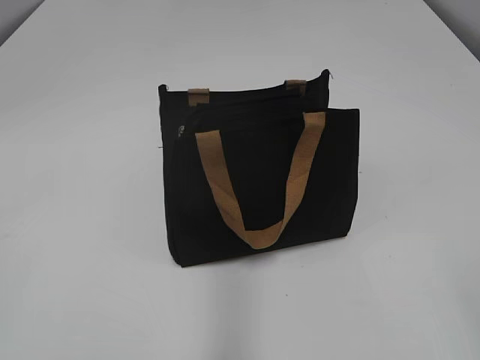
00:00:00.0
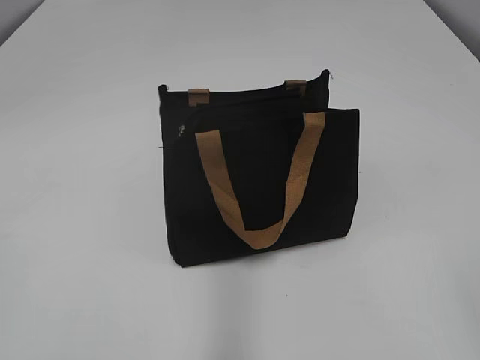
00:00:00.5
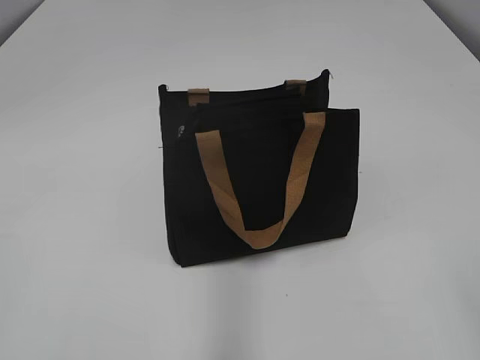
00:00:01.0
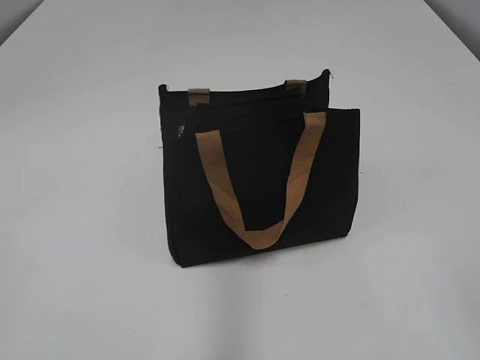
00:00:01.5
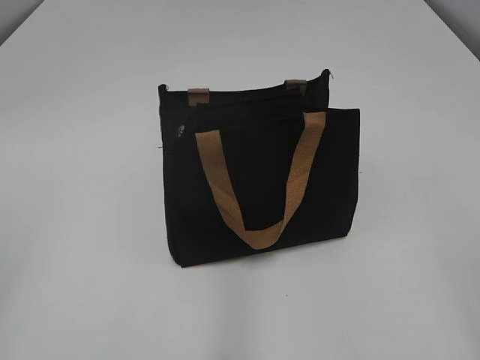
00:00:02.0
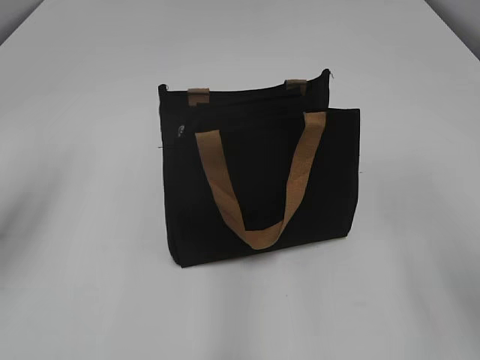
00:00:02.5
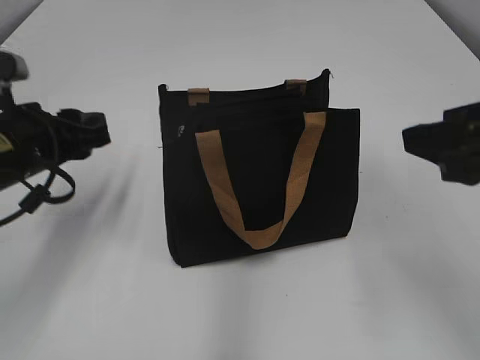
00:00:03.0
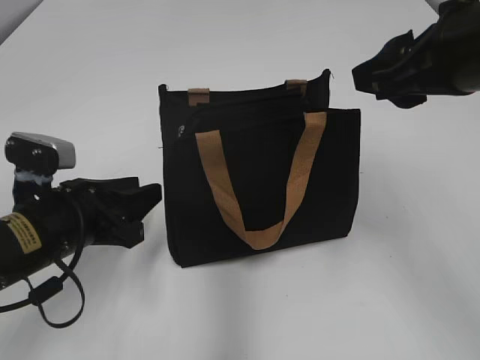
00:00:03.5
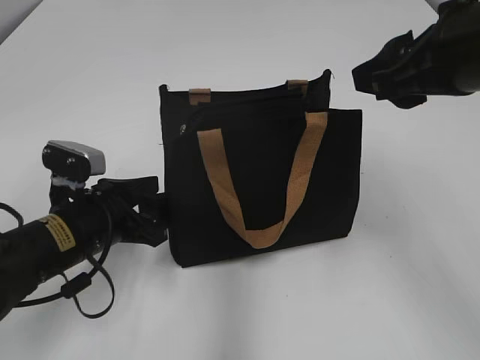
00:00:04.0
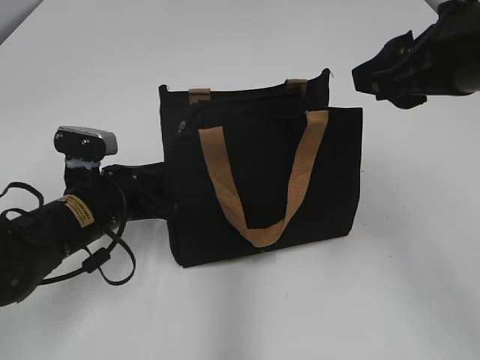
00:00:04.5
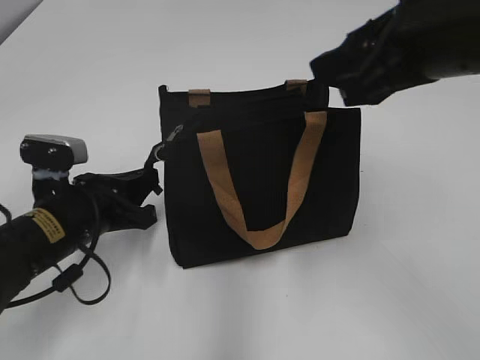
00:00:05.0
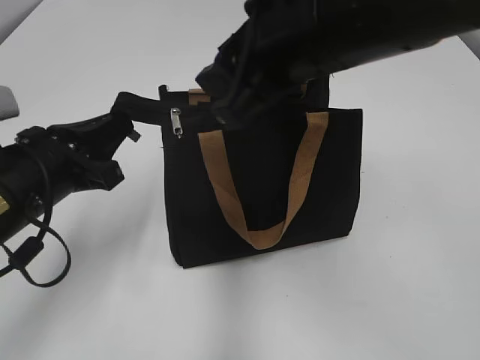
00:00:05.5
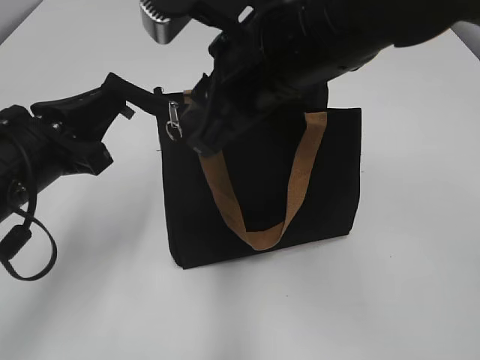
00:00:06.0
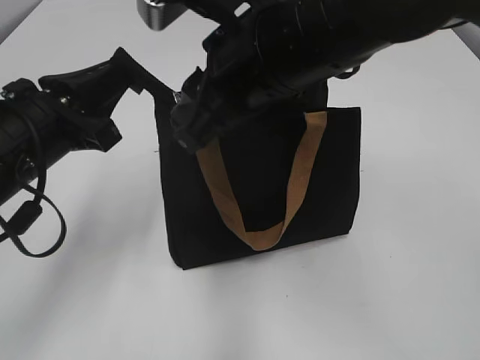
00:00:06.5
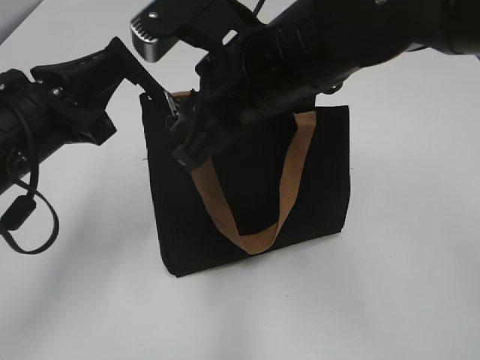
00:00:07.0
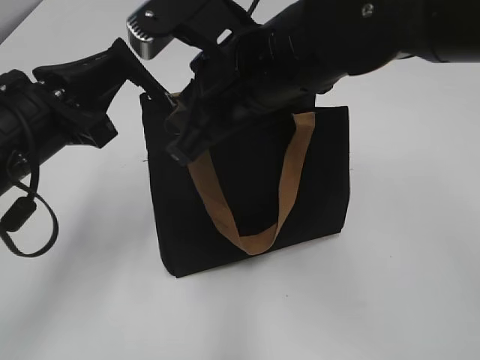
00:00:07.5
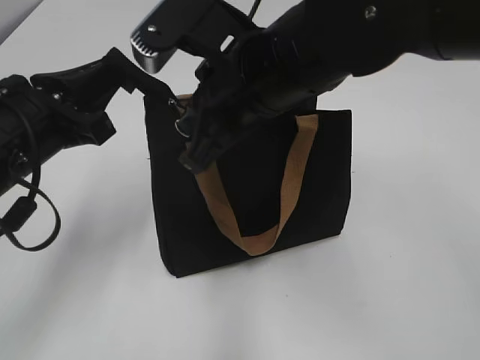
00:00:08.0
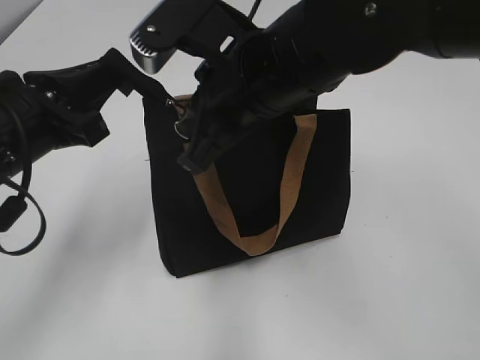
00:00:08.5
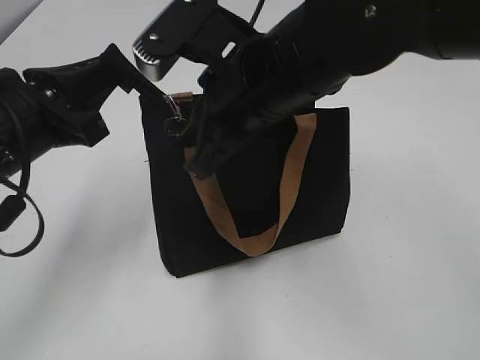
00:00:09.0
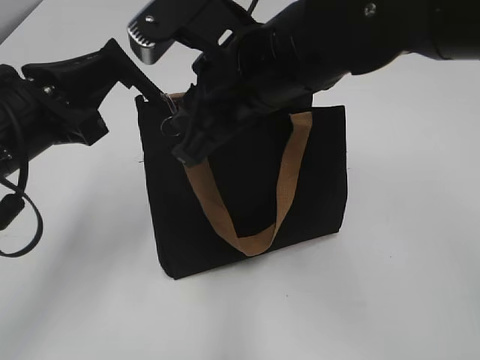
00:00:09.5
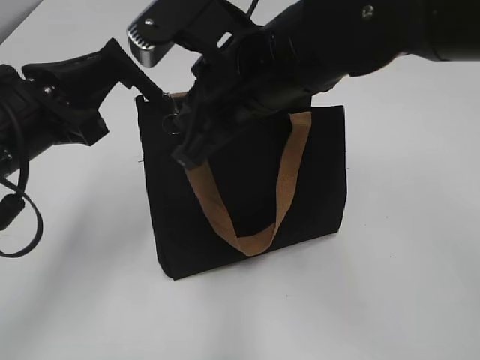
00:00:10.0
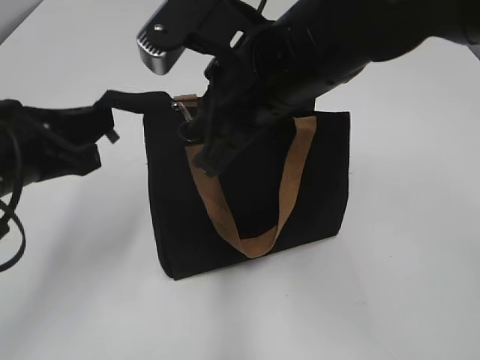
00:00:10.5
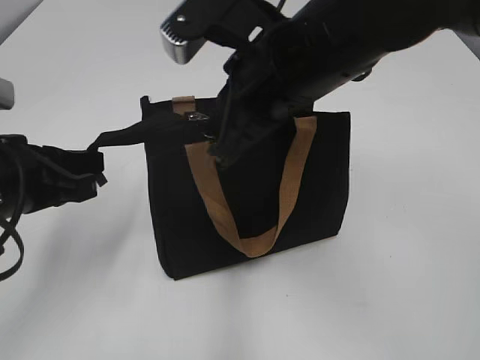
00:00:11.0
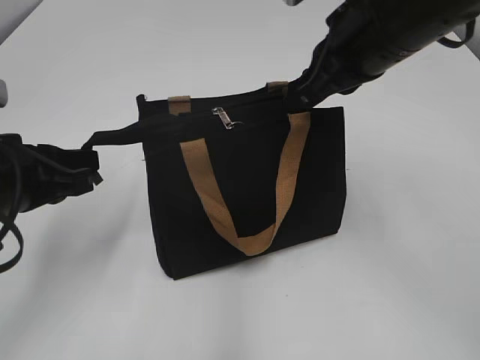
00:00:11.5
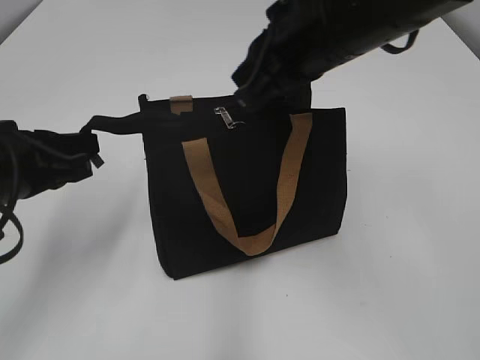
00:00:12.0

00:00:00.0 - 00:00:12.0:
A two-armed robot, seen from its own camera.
00:00:02.0 - 00:00:04.0: The right gripper heads forward and to the left, covering about 25 cm, while the left gripper goes some 30 cm downward, forward and to the right, and opens.
00:00:04.0 - 00:00:06.0: The right gripper goes roughly 15 cm to the left. Meanwhile the left gripper moves upward, about 10 cm, and closes up.
00:00:06.0 - 00:00:08.0: The right gripper closes.
00:00:08.0 - 00:00:10.0: The right gripper opens, then closes again.
00:00:10.0 - 00:00:12.0: The right gripper shifts about 5 cm to the right.

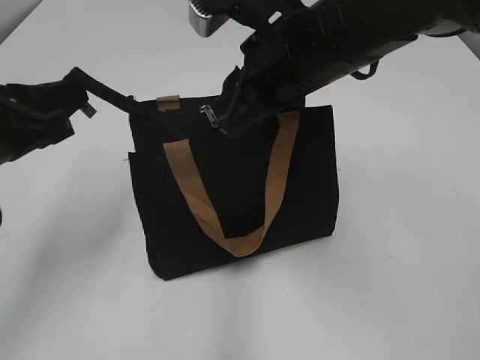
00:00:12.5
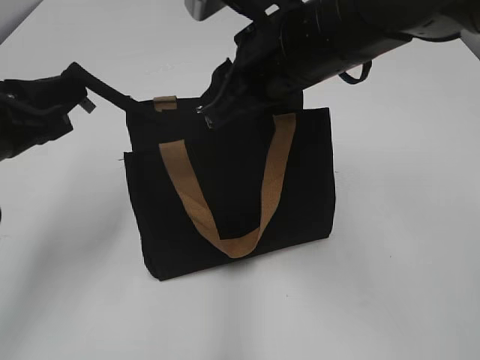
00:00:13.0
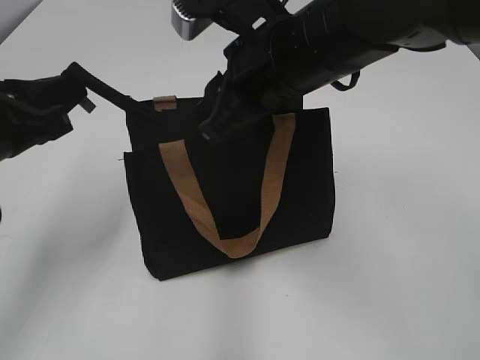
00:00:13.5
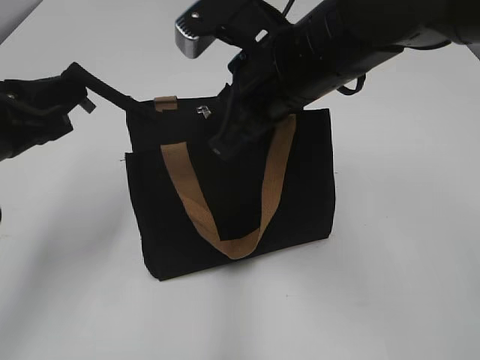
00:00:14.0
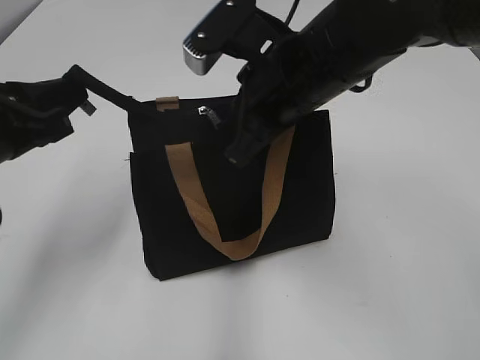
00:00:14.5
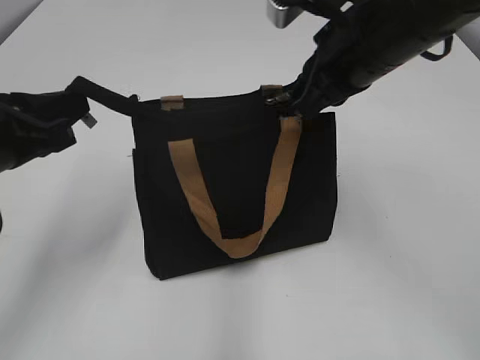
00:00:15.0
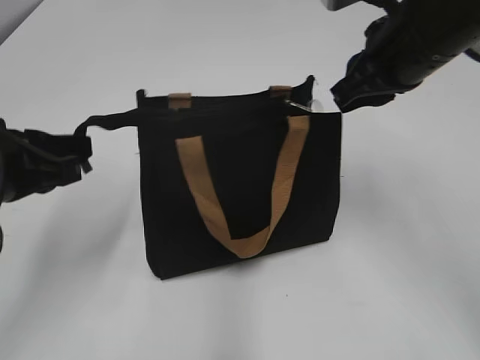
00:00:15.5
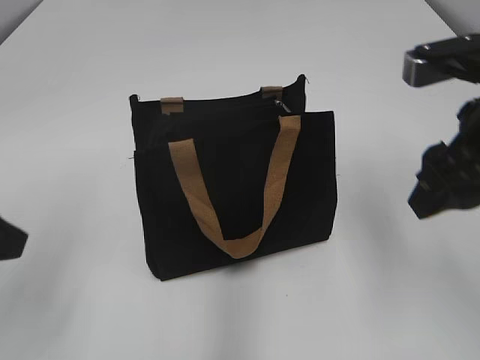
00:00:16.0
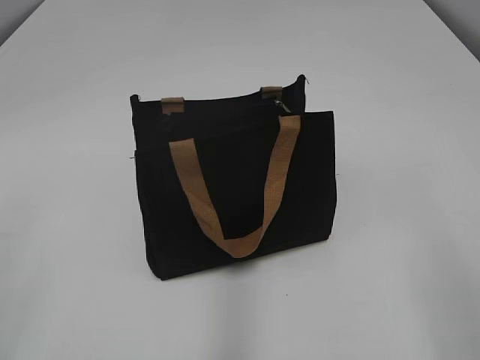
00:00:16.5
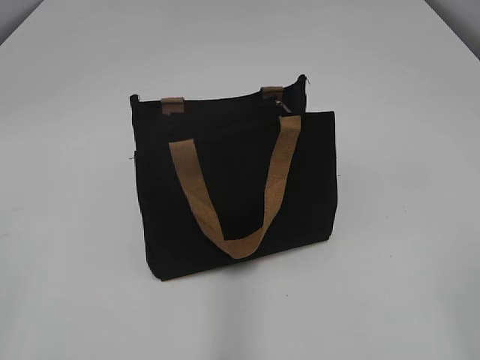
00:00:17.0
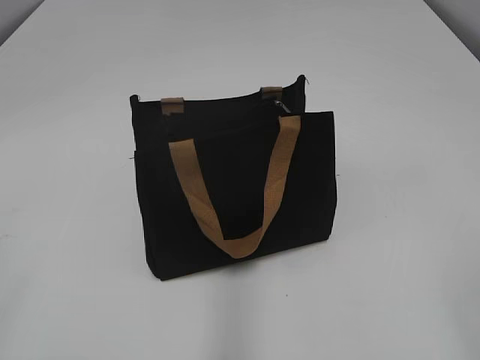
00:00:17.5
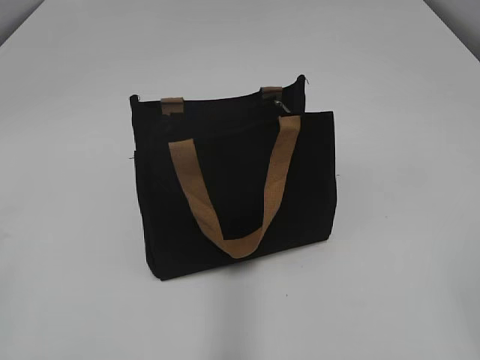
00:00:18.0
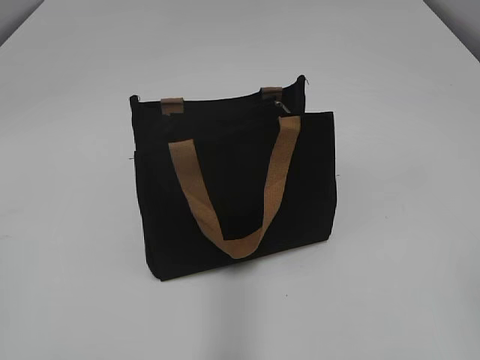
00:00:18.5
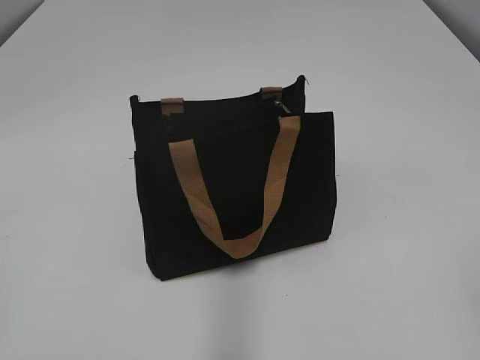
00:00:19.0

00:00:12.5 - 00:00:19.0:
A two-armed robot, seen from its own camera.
Step, 00:00:12.5 - 00:00:15.0: Zip up the bag with your right hand.
00:00:12.5 - 00:00:14.5: The right gripper closes its fingers.
00:00:14.5 - 00:00:17.0: The left gripper travels backward and to the left by roughly 25 cm, and opens. Meanwhile the right gripper is displaced backward and to the right by approximately 35 cm, and opens.

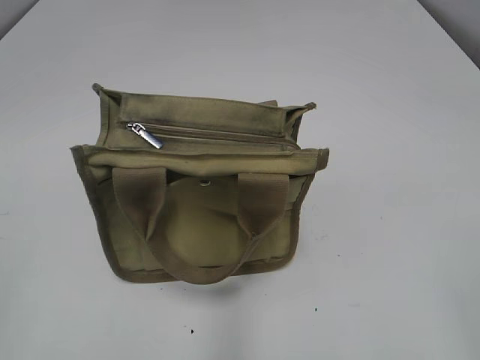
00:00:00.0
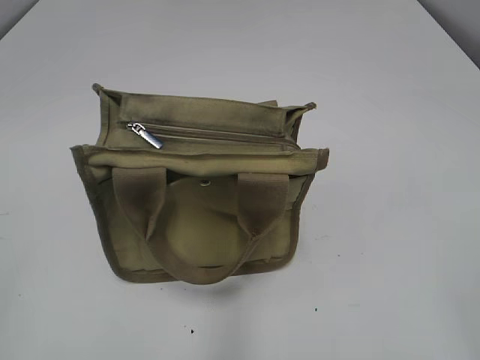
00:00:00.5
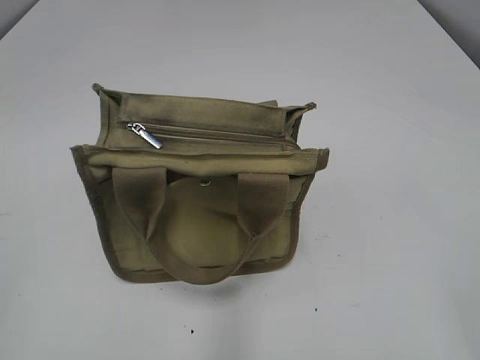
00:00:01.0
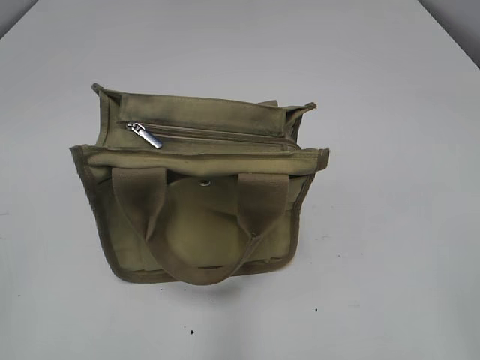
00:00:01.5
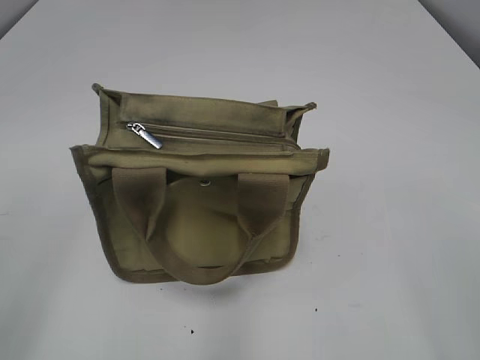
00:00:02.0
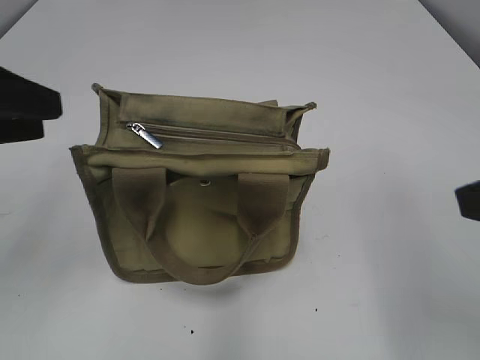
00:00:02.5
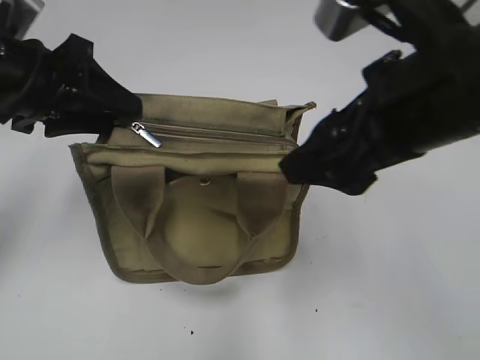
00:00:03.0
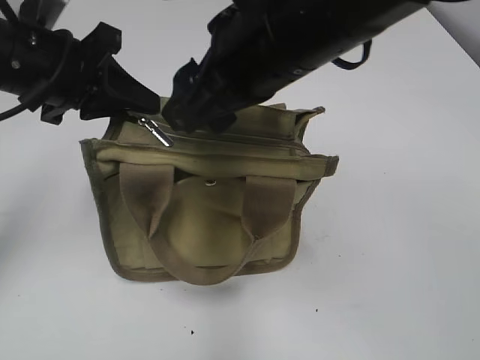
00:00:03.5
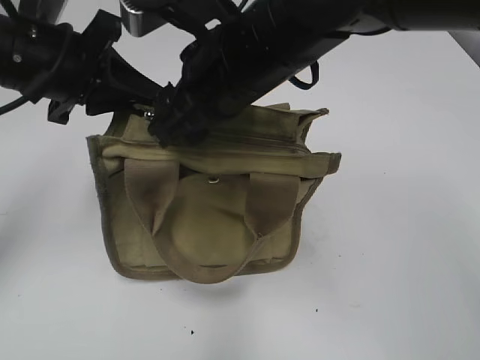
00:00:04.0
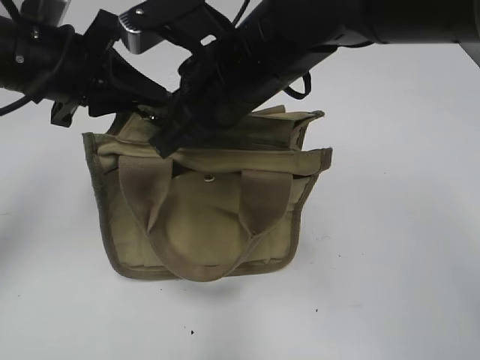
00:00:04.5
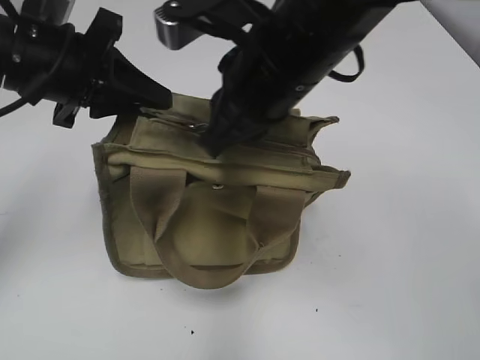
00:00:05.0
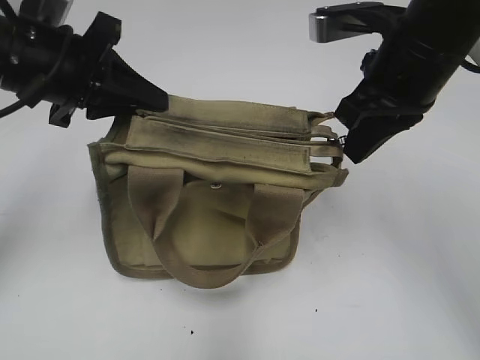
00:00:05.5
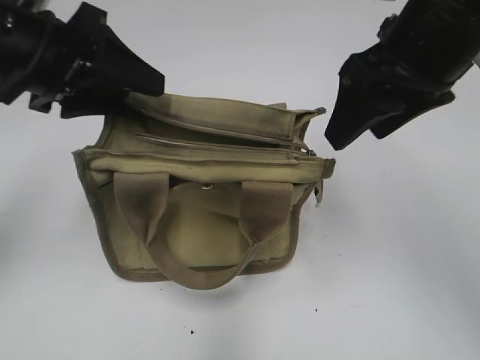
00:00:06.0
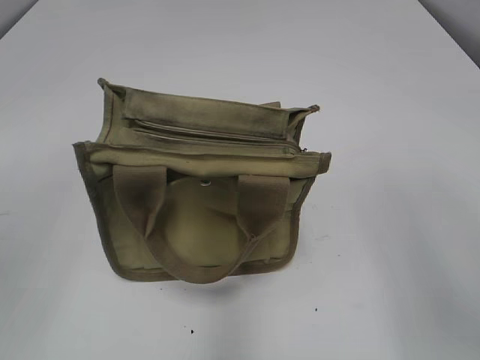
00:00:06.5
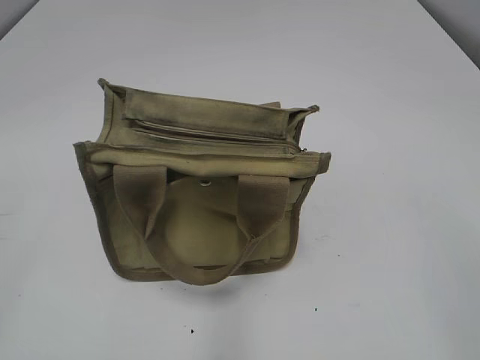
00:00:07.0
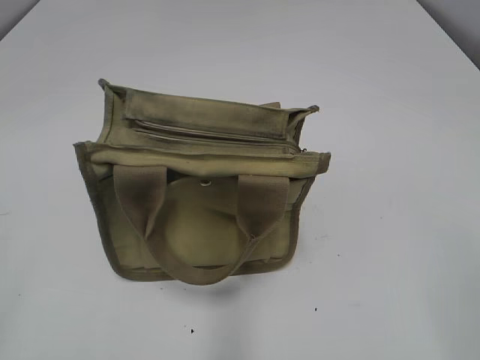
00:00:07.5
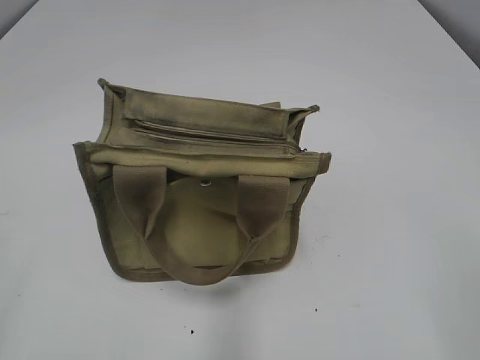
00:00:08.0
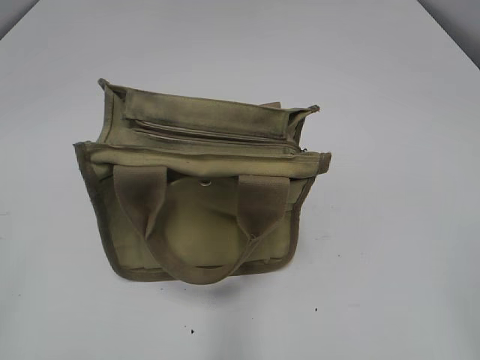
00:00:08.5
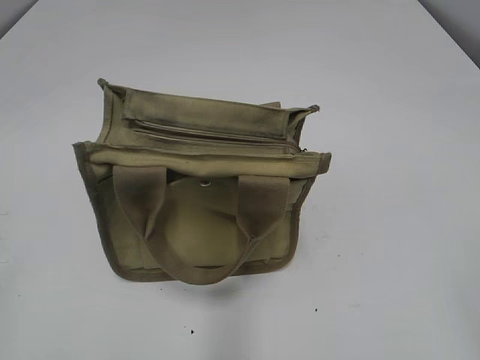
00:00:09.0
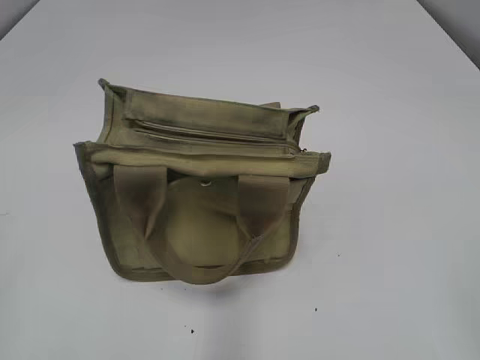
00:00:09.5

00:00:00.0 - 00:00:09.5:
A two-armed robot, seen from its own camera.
Step, 00:00:00.0 - 00:00:05.5: Pull open the zipper with your right hand.
00:00:02.0 - 00:00:04.0: The right gripper travels forward and to the left by roughly 35 cm. Meanwhile the left gripper moves forward and to the right, some 25 cm, and closes up.
00:00:04.0 - 00:00:05.5: The right gripper travels to the right by roughly 15 cm, and closes.
00:00:05.5 - 00:00:07.5: The left gripper heads backward and to the left, covering some 35 cm, and opens up, while the right gripper goes some 30 cm backward and to the right, and opens.
